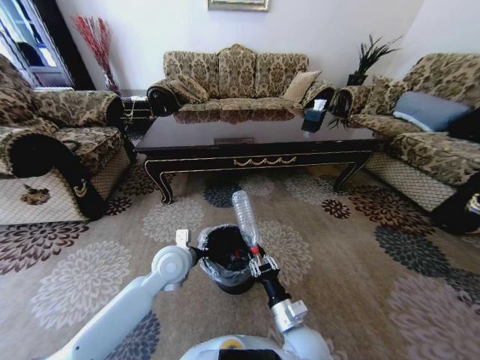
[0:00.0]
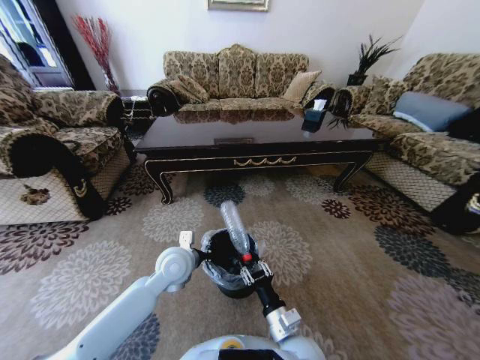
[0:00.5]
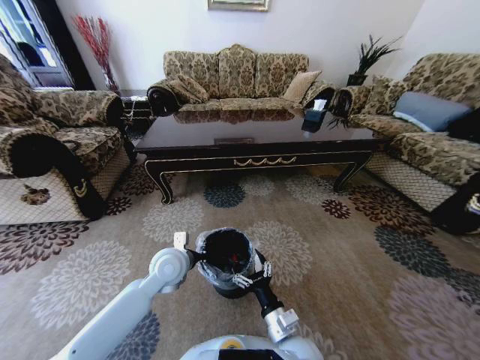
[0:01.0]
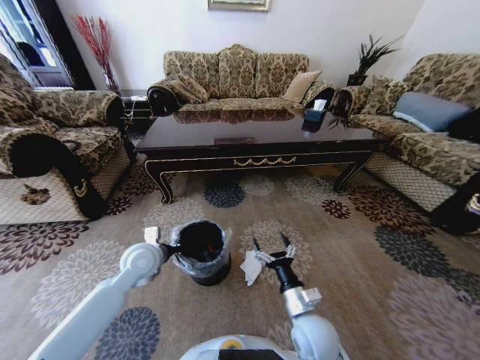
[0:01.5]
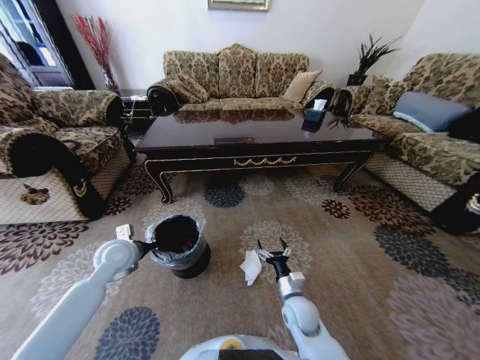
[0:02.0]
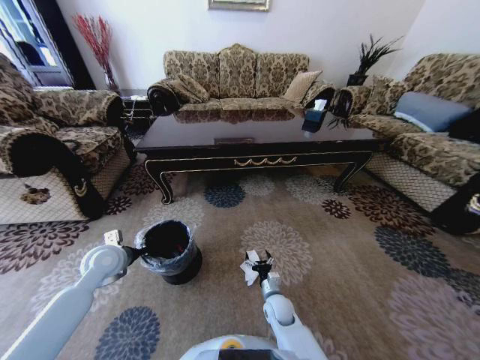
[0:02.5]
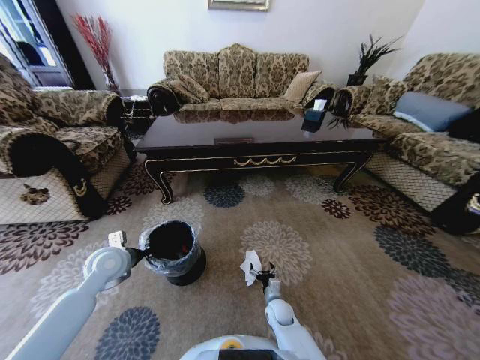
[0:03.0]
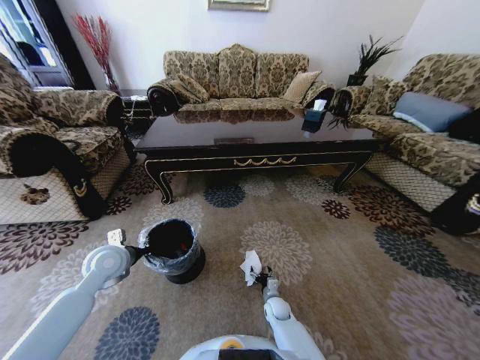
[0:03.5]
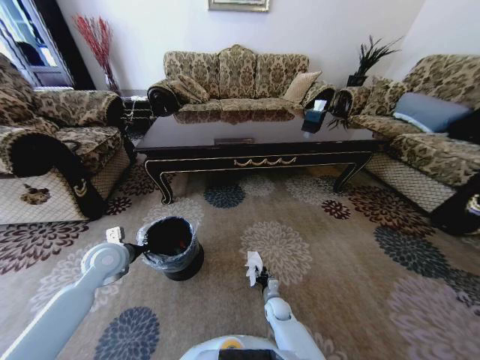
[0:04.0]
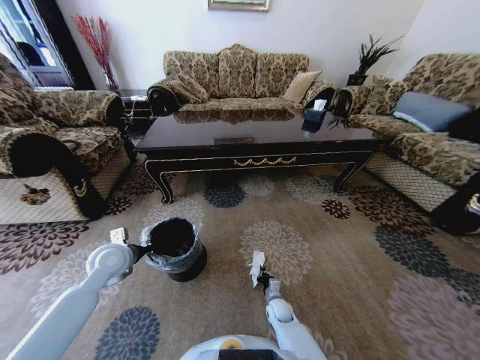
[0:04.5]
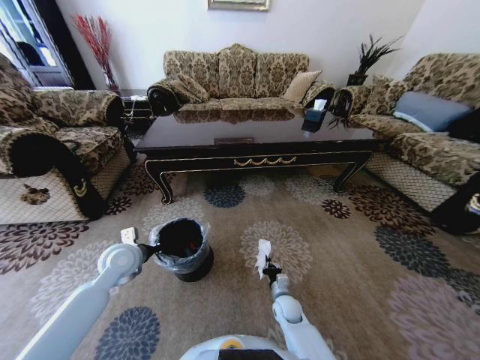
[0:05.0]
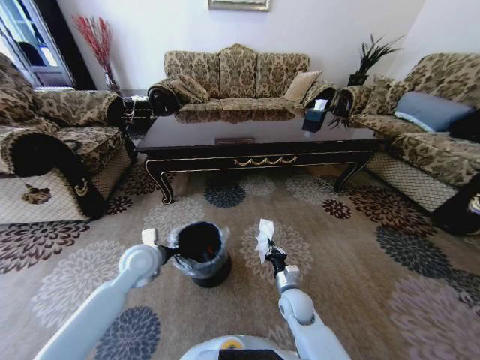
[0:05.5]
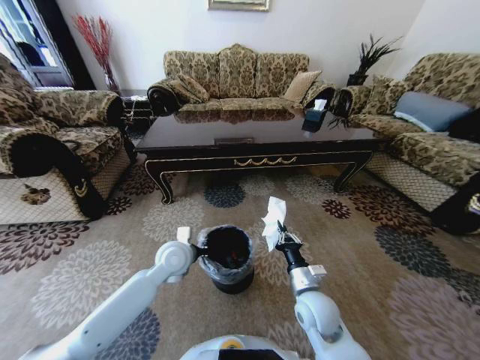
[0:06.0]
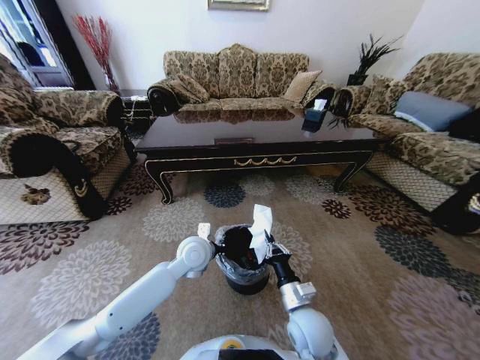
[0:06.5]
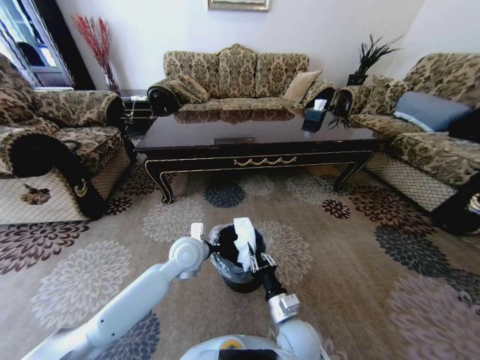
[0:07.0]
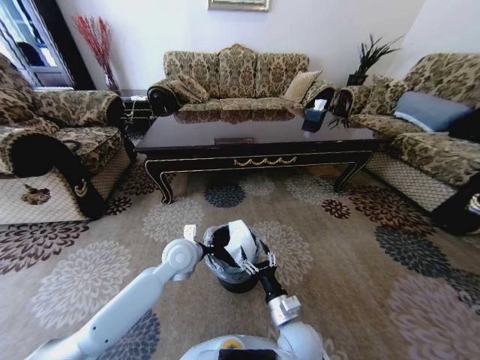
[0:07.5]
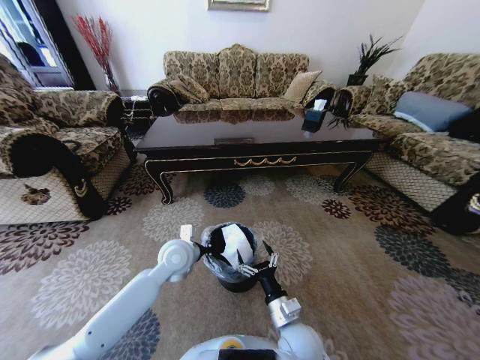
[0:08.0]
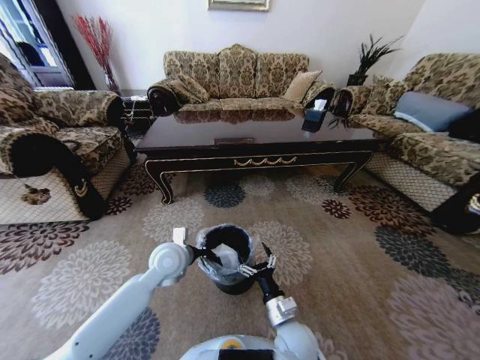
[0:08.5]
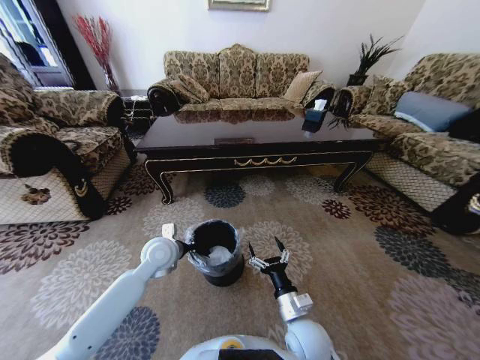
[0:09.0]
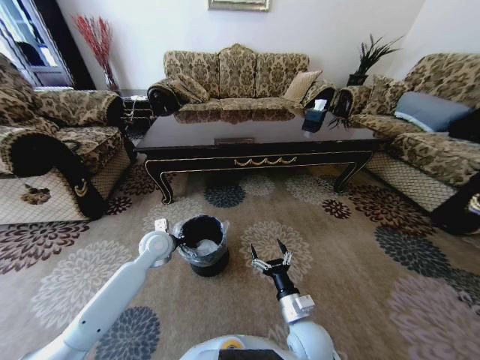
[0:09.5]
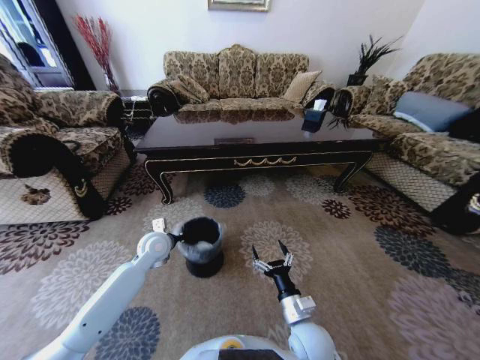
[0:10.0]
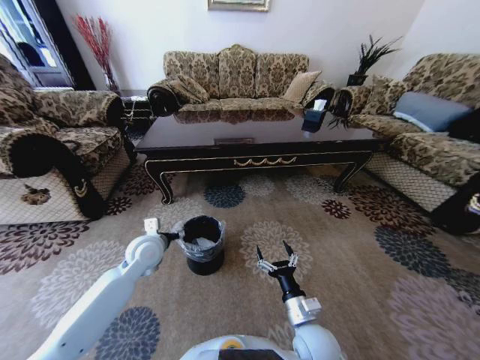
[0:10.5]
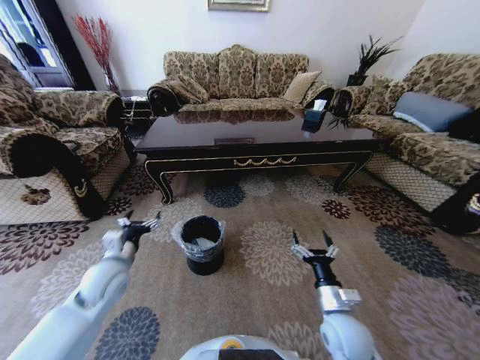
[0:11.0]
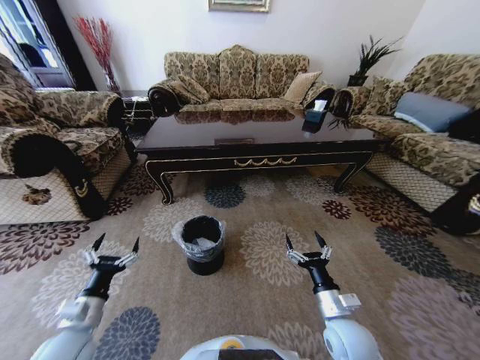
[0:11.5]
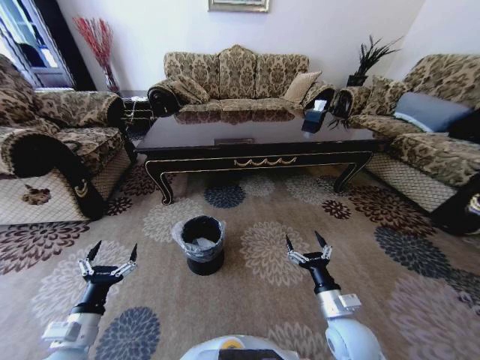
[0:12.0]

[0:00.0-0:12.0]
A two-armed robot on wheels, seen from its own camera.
Task of the whole recording: Move to the front of the table and pick up the trash from the floor, then place it into the trash bin.
0:00.0 to 0:02.0: The left gripper is displaced to the left by about 15 cm. Meanwhile the right gripper is displaced forward and downward by about 10 cm, and opens up.
0:02.0 to 0:04.0: The right gripper shifts approximately 20 cm downward, and closes its fingers.
0:04.0 to 0:06.0: The right gripper is displaced upward by some 25 cm, and closes up, while the left gripper goes some 20 cm to the right.
0:06.0 to 0:08.0: The right gripper travels backward and to the left by some 10 cm, and opens up.
0:08.0 to 0:10.0: The left gripper moves to the left, roughly 10 cm.
0:10.0 to 0:12.0: The left gripper heads backward, covering about 25 cm, and opens, while the right gripper moves to the right, some 10 cm.

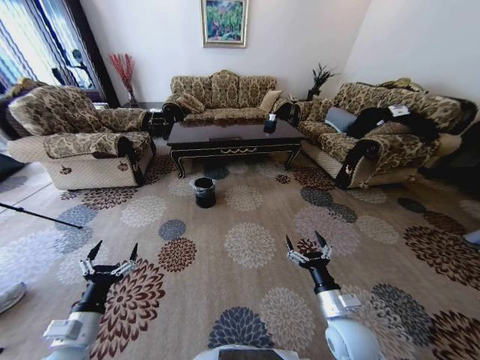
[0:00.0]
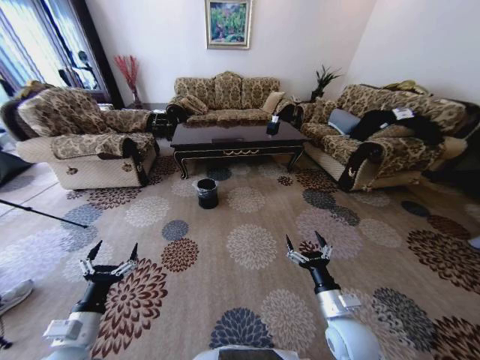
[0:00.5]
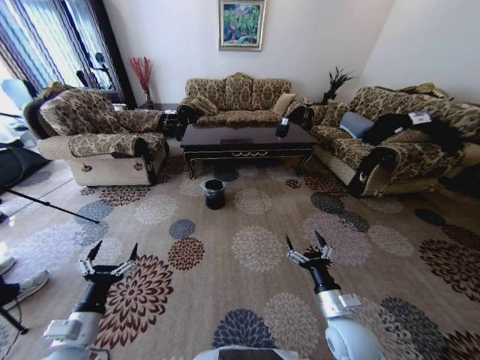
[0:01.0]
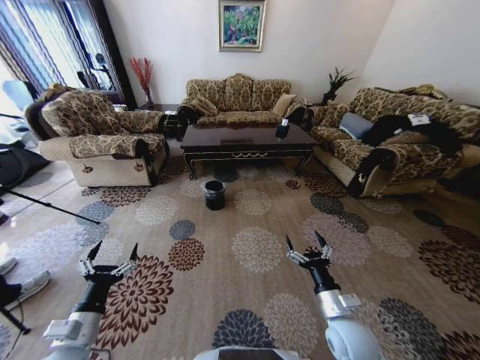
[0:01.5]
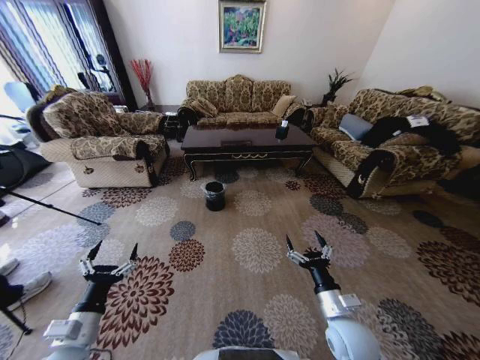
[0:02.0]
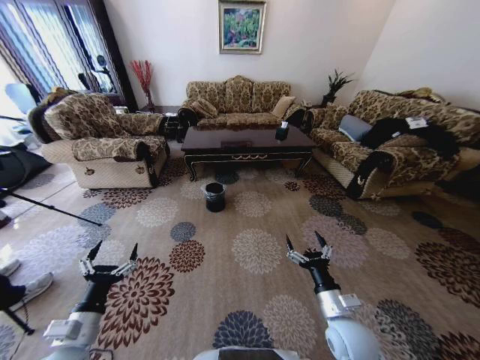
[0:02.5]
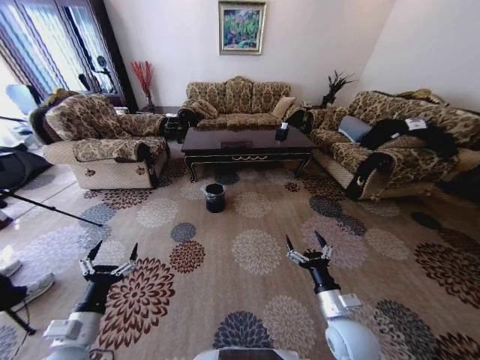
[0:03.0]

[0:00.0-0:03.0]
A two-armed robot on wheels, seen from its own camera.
Task of the whole recording: Move to the front of the table and pick up the trash from the floor, then place it into the trash bin.
0:01.5 to 0:03.0: Both grippers stay about where they are.

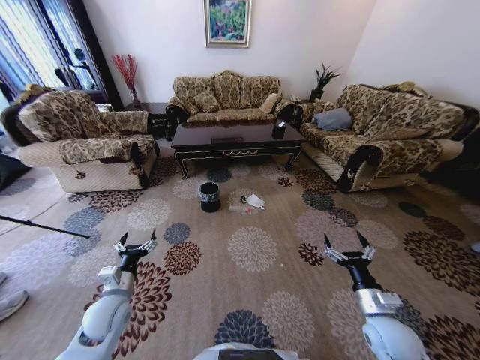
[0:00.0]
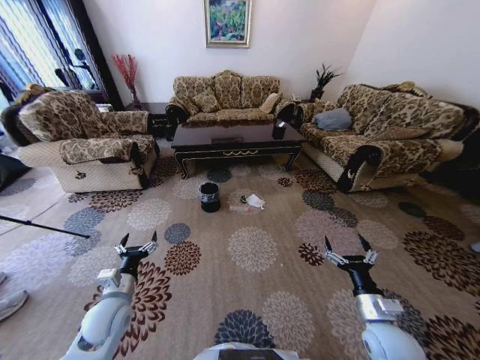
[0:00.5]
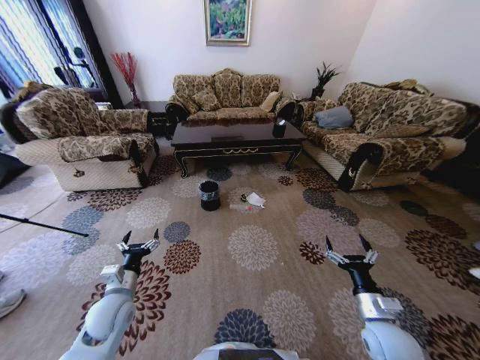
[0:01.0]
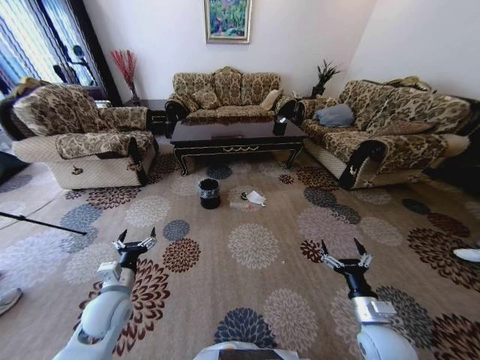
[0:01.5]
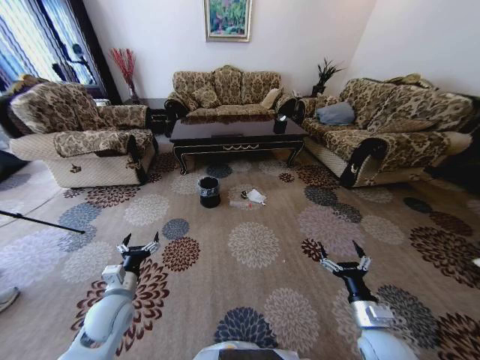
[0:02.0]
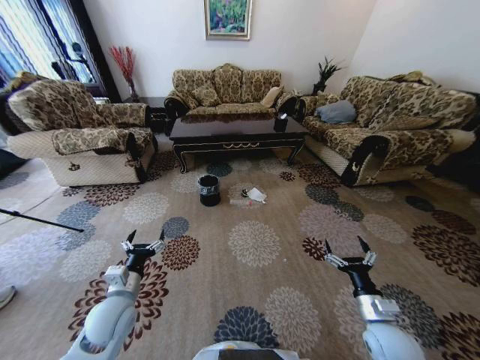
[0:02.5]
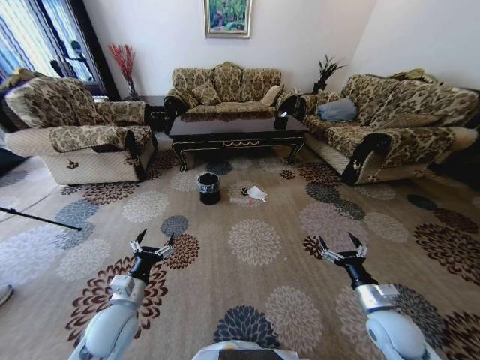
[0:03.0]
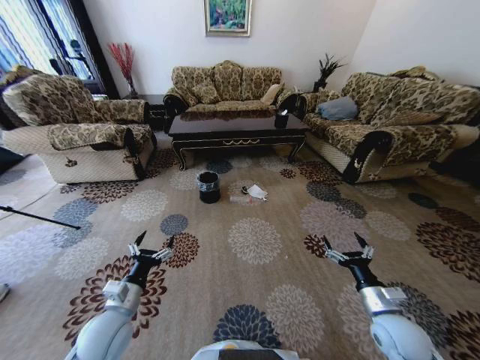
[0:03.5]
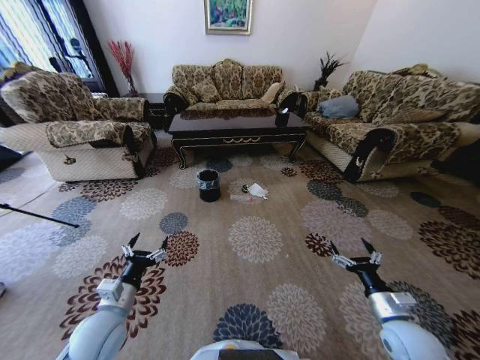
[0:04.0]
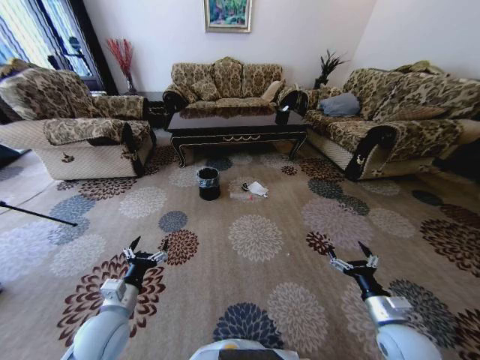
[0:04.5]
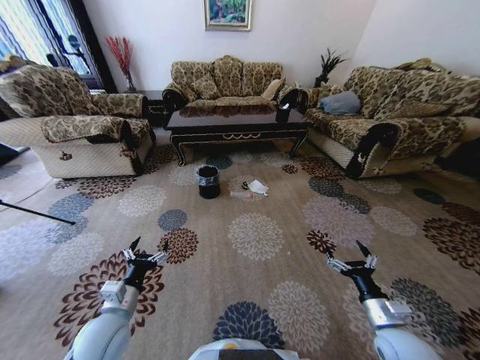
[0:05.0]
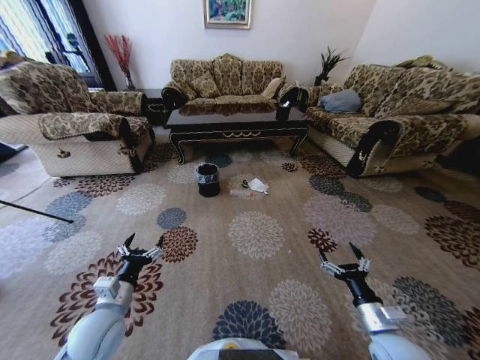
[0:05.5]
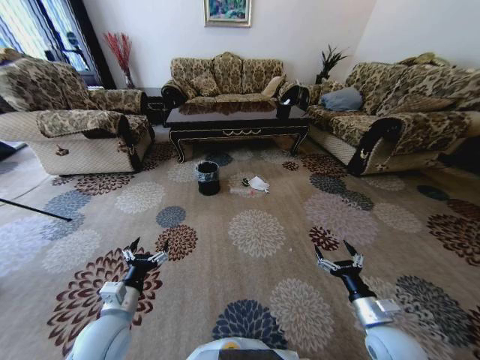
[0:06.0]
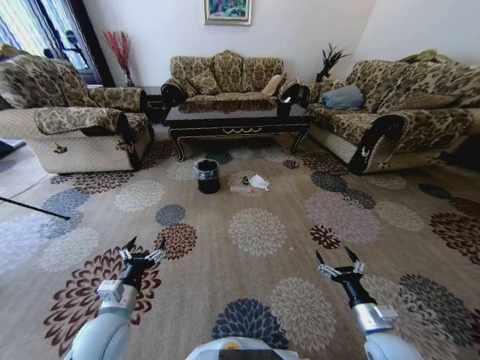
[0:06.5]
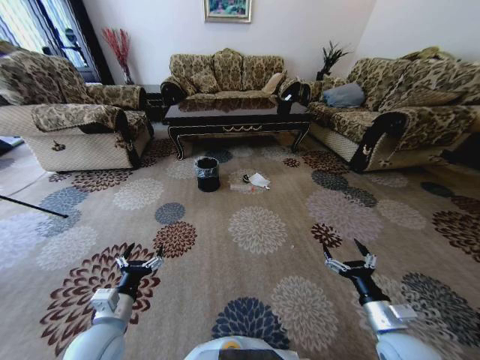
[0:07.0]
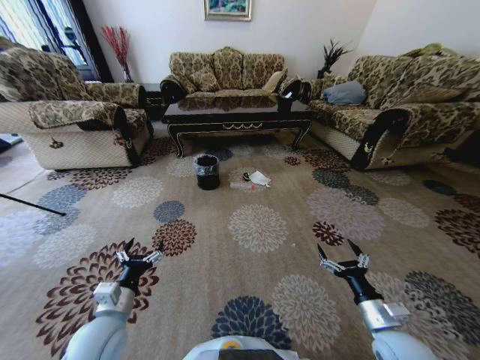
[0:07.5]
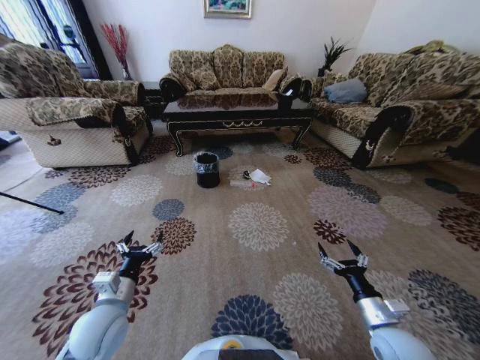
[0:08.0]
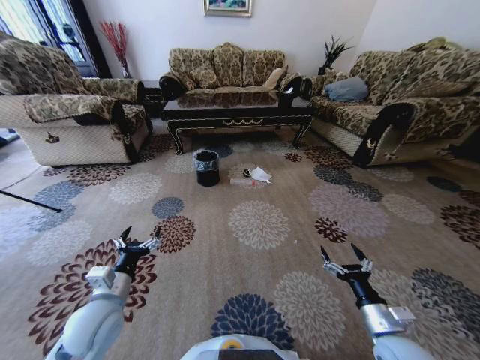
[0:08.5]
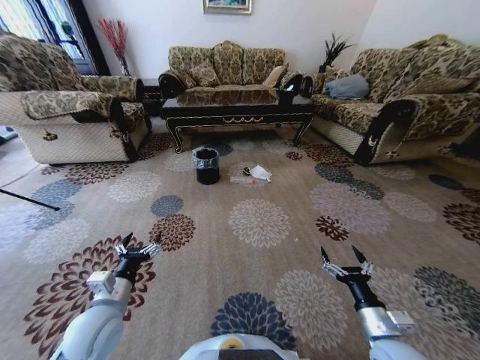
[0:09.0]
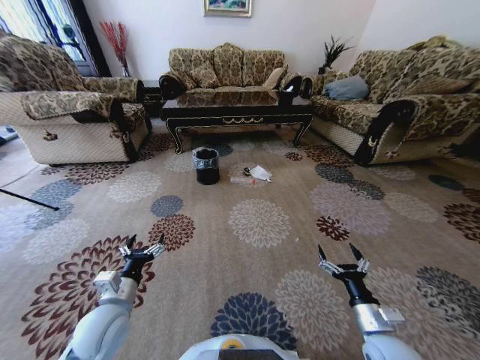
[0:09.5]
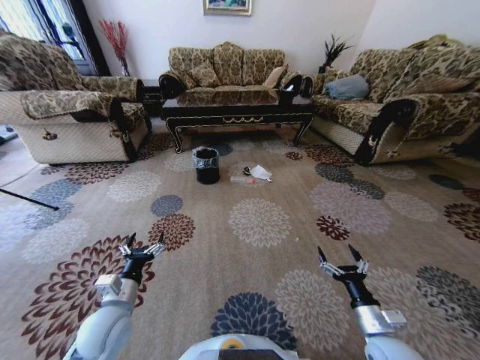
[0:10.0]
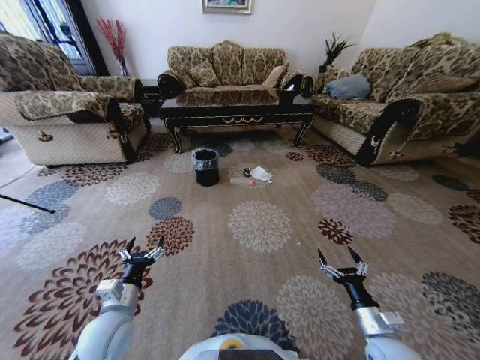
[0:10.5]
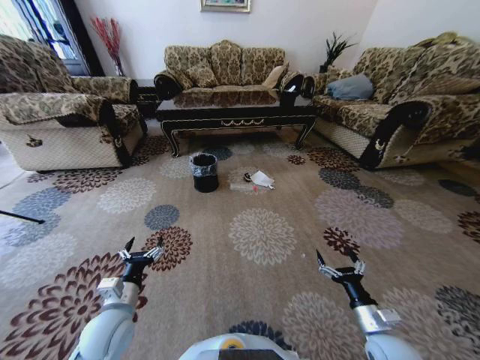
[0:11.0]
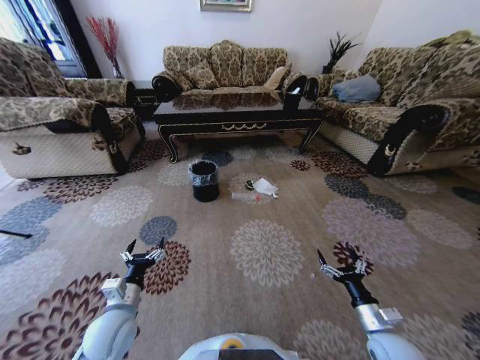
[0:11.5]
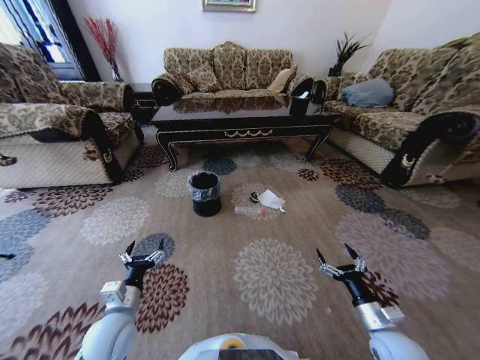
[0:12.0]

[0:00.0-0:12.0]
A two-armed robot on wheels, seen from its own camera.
Task of the whole recording: Move to the front of the table and pick up the trash from the floor, then place it into the trash bin.
0:02.0 to 0:04.0: The right gripper moves to the right, about 5 cm.
